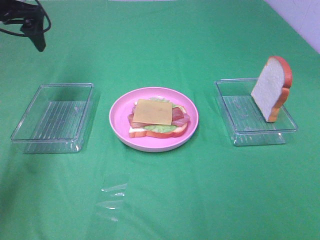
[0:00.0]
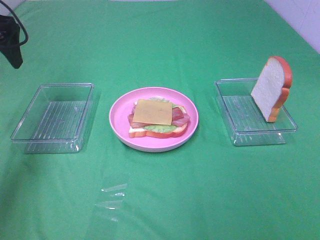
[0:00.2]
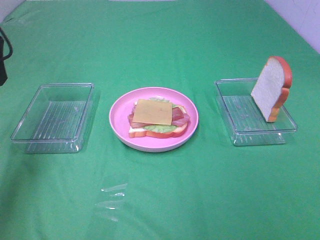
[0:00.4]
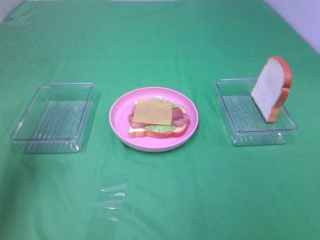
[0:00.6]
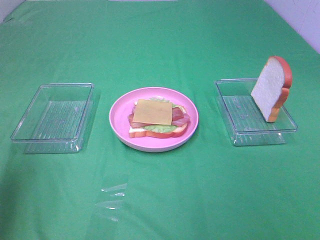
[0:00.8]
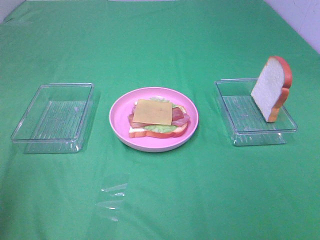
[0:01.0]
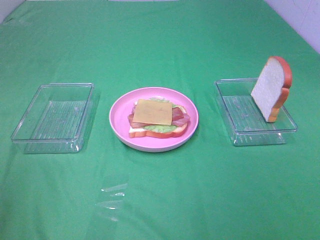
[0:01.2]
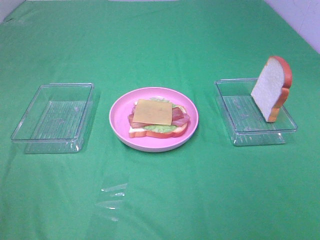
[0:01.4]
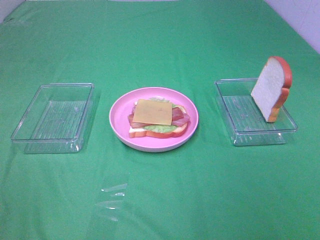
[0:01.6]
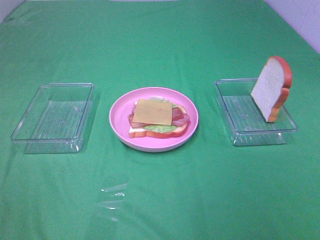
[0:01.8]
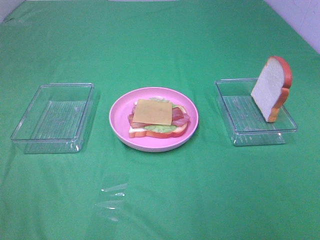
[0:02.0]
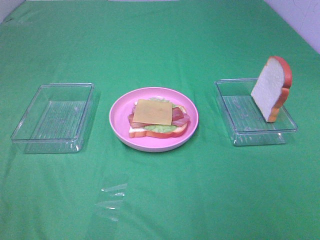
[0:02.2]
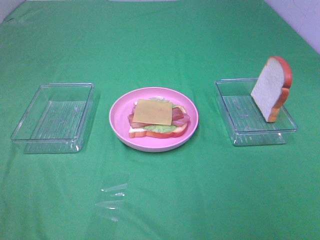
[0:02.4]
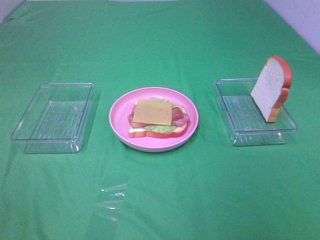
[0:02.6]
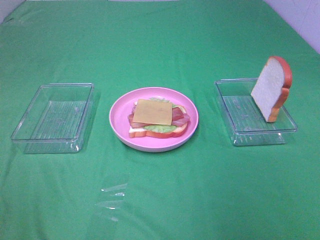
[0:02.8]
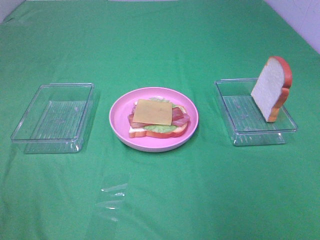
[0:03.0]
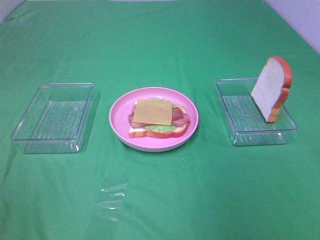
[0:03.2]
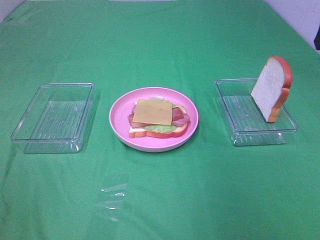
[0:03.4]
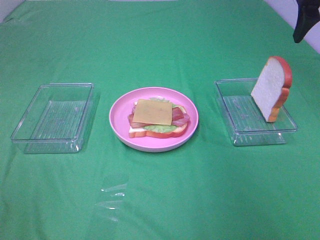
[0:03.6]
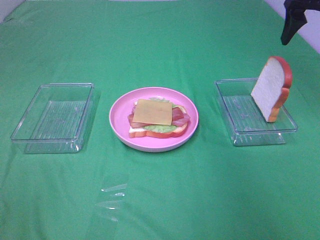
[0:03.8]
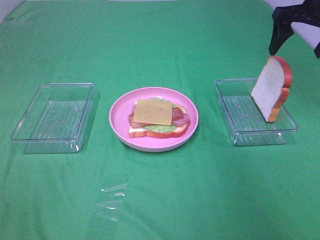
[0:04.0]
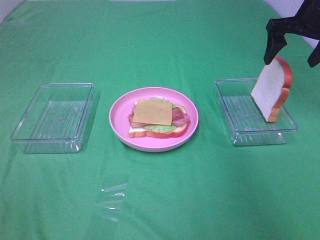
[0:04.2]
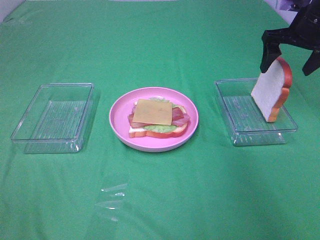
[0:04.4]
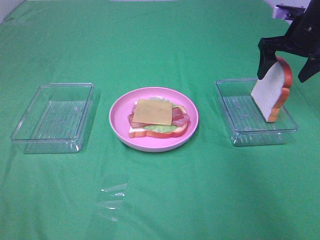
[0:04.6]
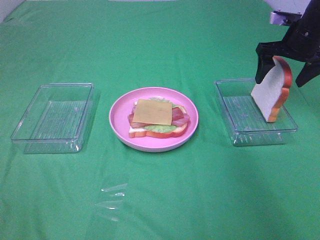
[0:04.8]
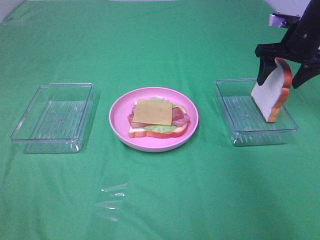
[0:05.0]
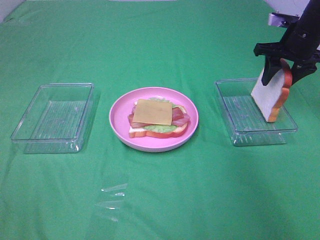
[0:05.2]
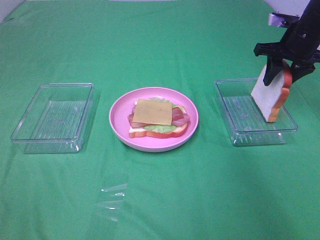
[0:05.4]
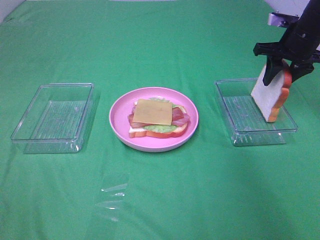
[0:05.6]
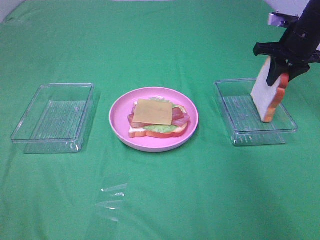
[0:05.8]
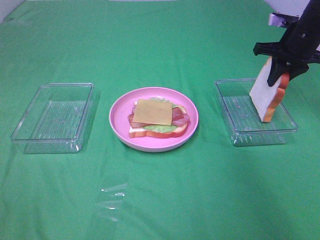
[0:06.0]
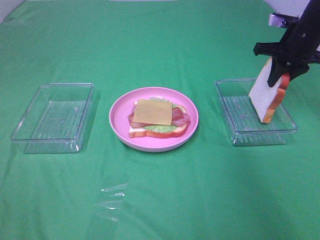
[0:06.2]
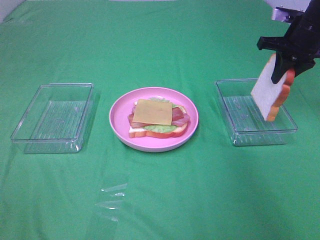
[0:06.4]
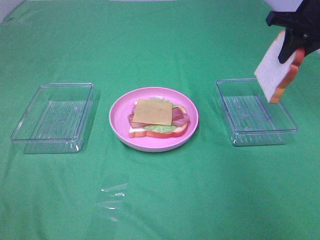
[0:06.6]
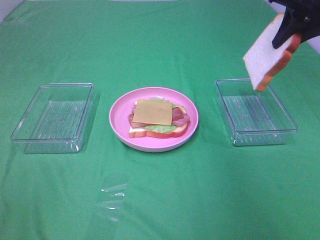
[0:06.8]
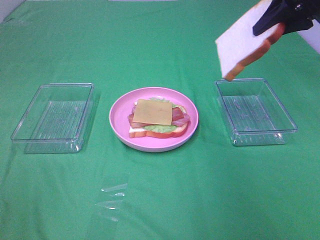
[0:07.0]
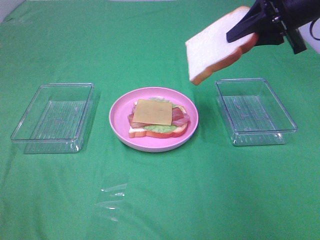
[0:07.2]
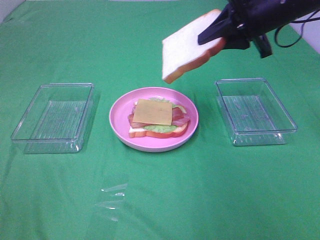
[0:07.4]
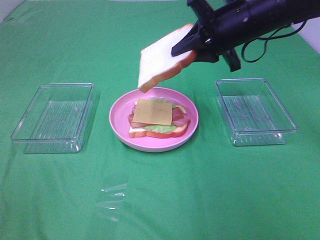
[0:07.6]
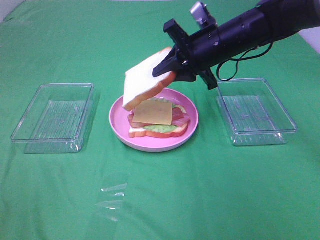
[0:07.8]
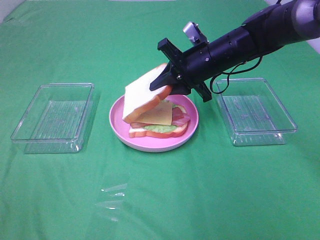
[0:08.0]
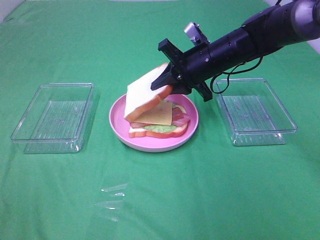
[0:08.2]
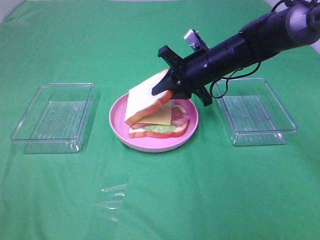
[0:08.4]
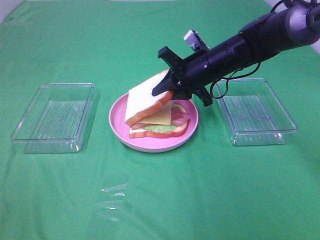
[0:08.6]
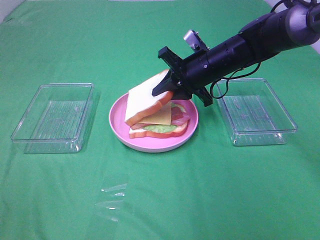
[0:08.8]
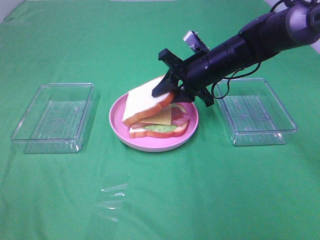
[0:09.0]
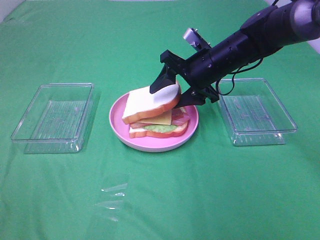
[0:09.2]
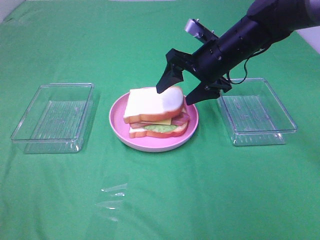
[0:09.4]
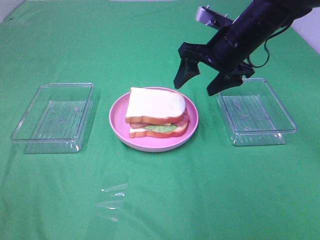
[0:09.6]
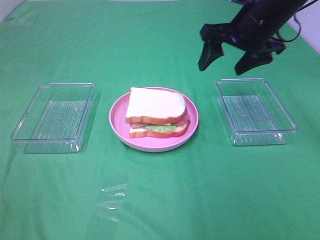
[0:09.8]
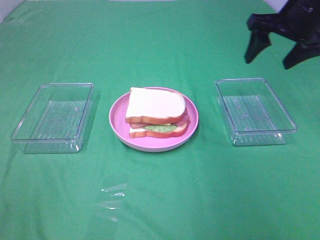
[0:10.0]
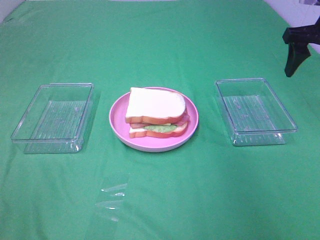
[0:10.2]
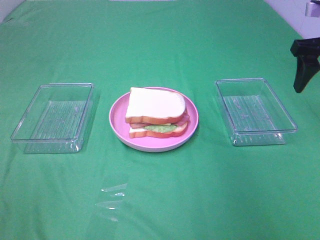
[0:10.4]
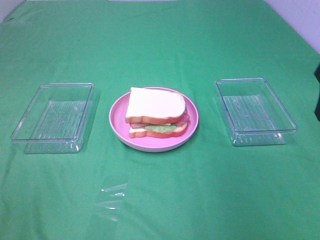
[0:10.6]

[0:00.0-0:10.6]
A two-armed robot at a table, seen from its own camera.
Task of the whole recording: Make sandwiches.
Step, 0:00.0 to 0:06.0: Right hand:grab the bread slice.
Step, 0:06.2 to 0:09.4: Right hand:place the bread slice on the cheese slice.
0:00.0 to 0:01.6: The left gripper shifts about 40 cm backward.
0:03.0 to 0:04.6: The right gripper moves forward and downward, some 30 cm.
0:04.6 to 0:06.0: The right gripper closes up.
0:06.0 to 0:07.6: The right gripper travels to the left and backward by approximately 15 cm.
0:07.6 to 0:09.0: The right gripper shifts roughly 10 cm downward.
0:09.0 to 0:10.6: The right gripper is displaced to the right, backward and upward by some 25 cm, and opens up.

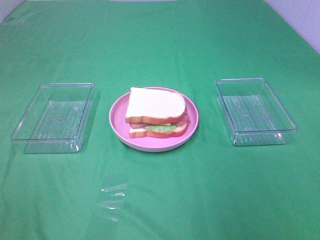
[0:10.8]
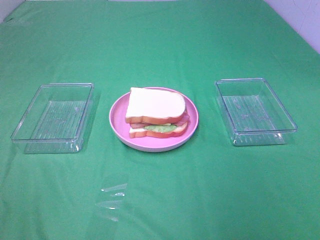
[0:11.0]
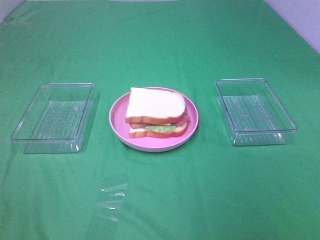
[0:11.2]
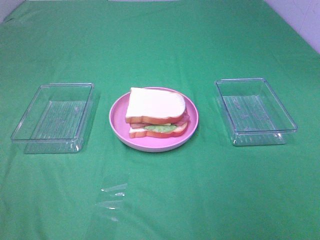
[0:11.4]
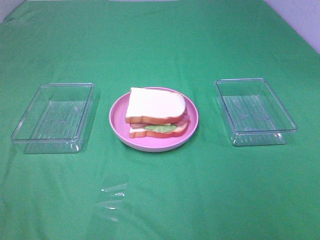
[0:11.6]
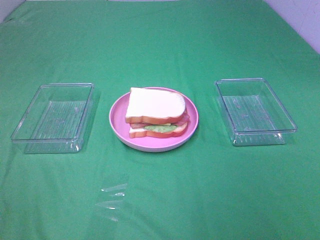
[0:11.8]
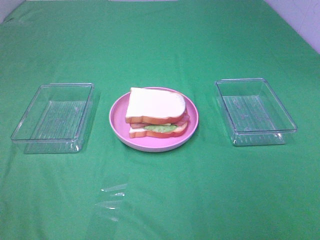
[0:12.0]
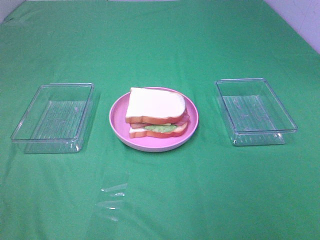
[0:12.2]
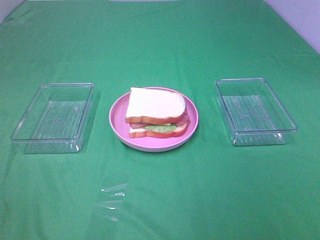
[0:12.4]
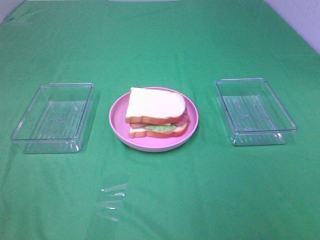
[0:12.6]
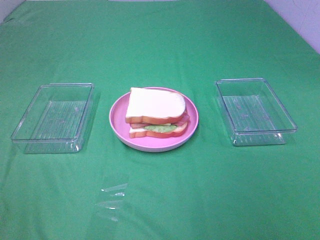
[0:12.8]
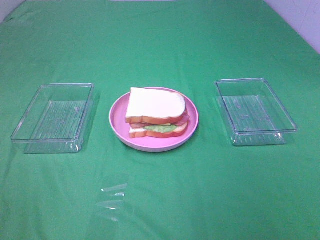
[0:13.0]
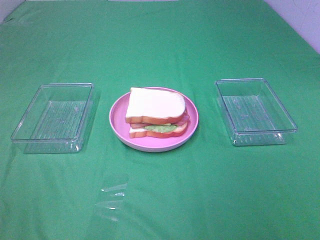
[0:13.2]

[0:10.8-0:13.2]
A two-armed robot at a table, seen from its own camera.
Task of the whole recording: Make sandwiches.
0:12.0 to 0:13.2: Both grippers stay about where they are.

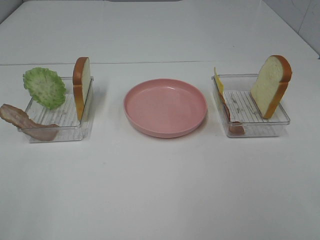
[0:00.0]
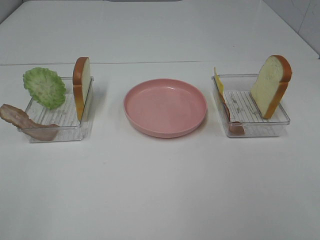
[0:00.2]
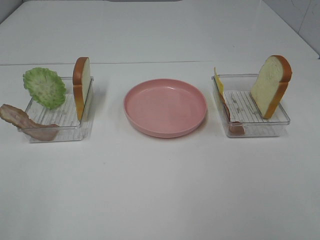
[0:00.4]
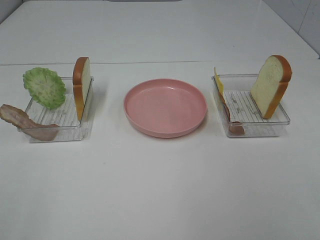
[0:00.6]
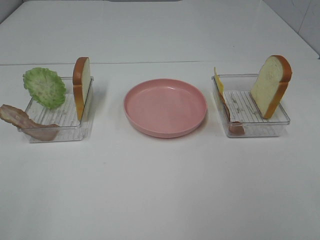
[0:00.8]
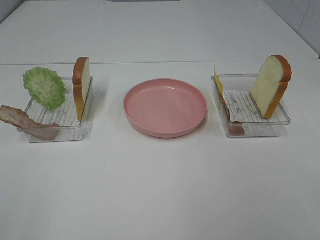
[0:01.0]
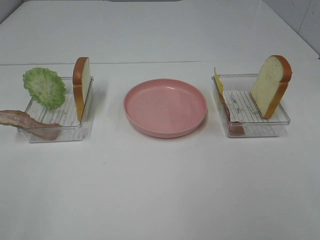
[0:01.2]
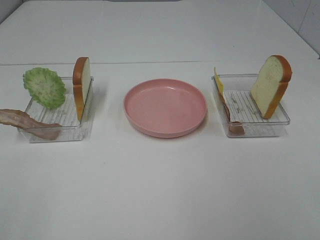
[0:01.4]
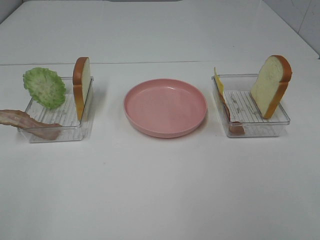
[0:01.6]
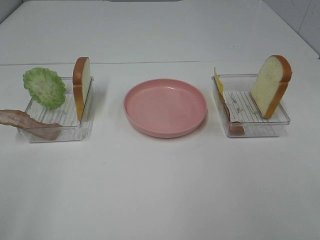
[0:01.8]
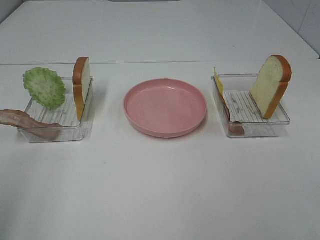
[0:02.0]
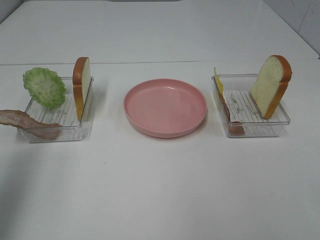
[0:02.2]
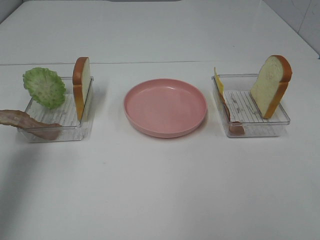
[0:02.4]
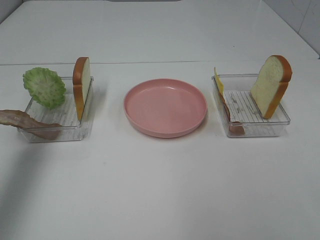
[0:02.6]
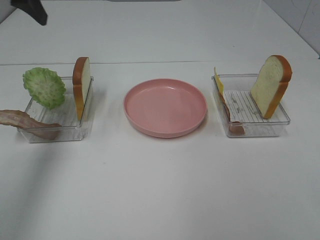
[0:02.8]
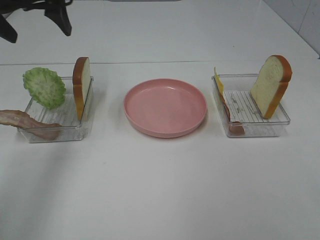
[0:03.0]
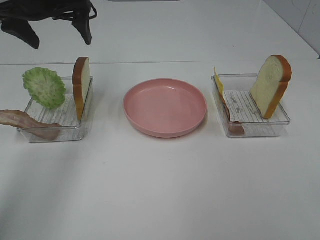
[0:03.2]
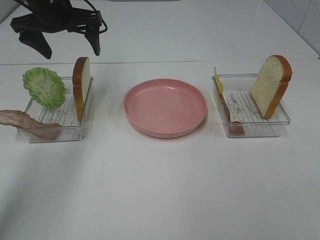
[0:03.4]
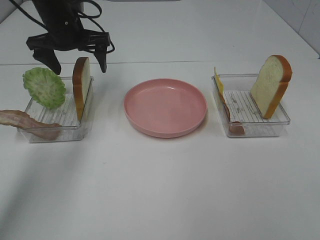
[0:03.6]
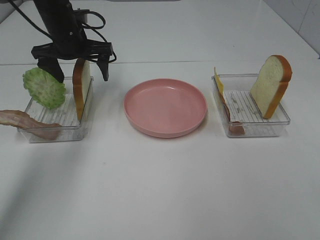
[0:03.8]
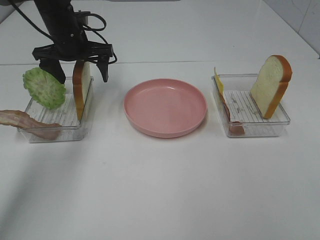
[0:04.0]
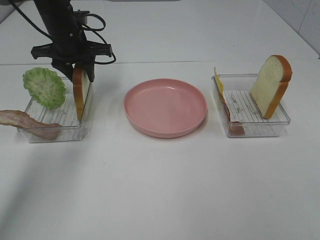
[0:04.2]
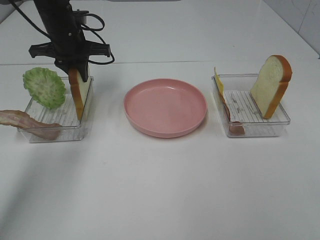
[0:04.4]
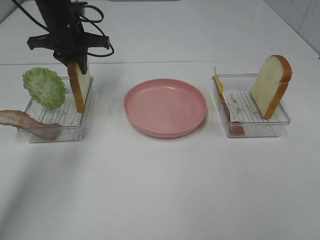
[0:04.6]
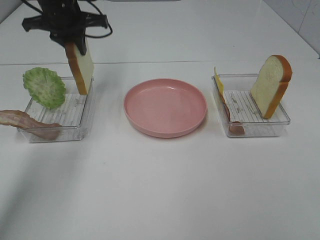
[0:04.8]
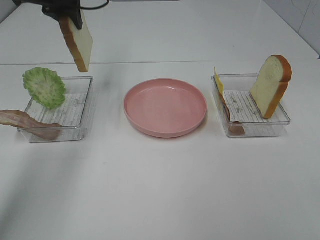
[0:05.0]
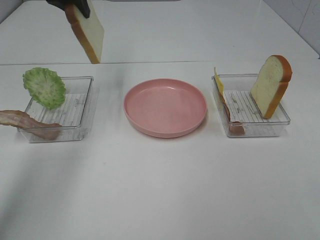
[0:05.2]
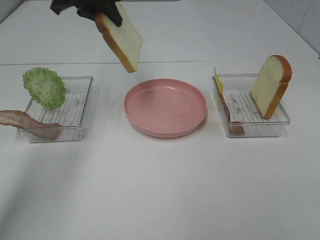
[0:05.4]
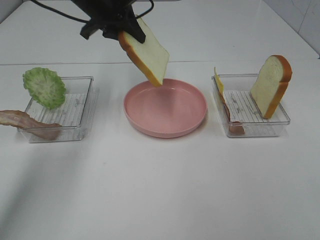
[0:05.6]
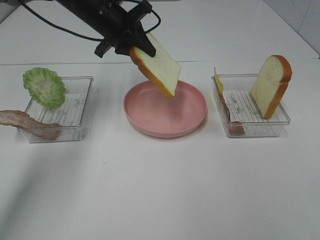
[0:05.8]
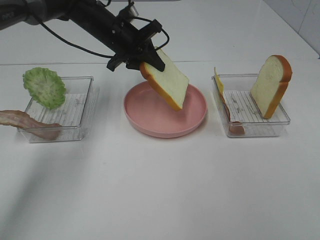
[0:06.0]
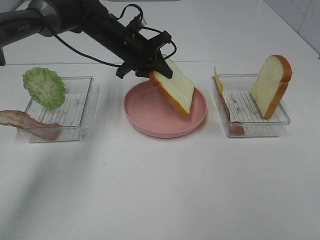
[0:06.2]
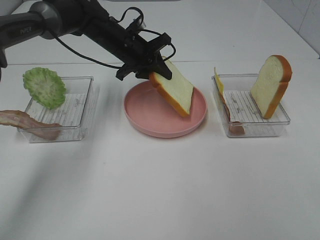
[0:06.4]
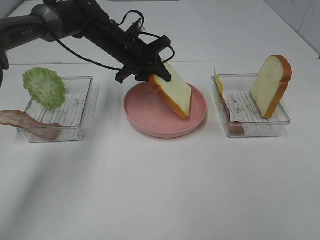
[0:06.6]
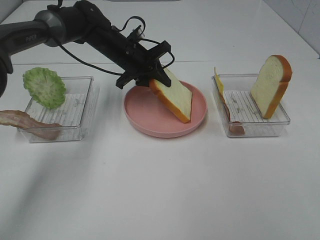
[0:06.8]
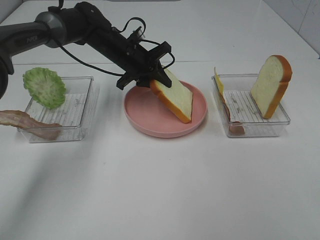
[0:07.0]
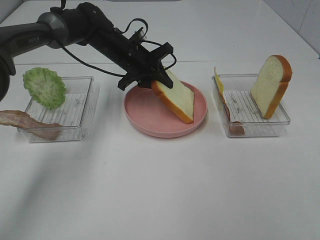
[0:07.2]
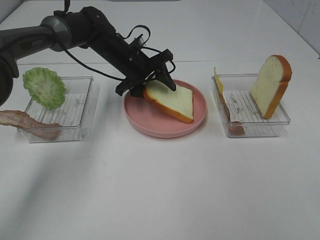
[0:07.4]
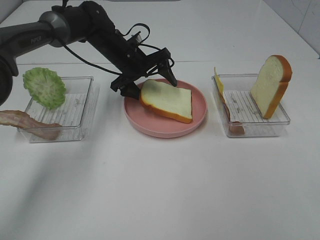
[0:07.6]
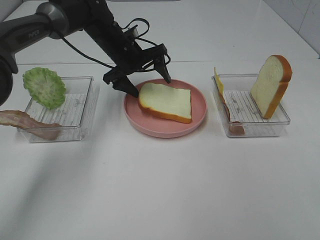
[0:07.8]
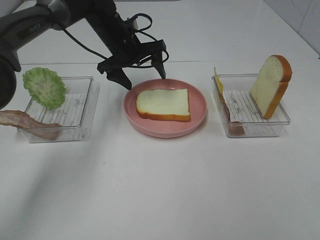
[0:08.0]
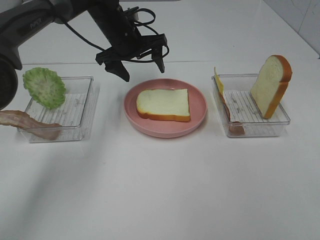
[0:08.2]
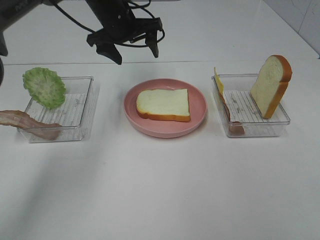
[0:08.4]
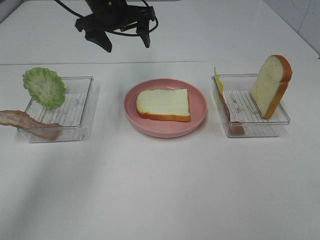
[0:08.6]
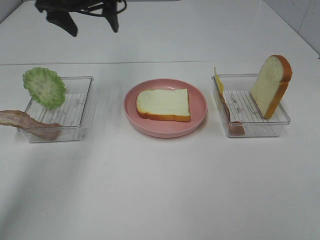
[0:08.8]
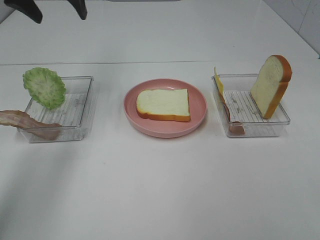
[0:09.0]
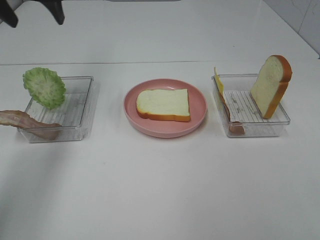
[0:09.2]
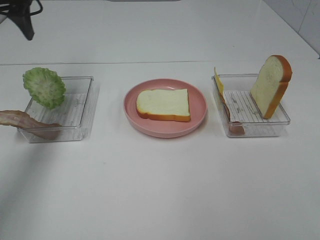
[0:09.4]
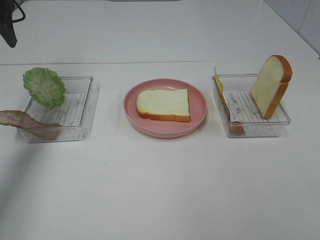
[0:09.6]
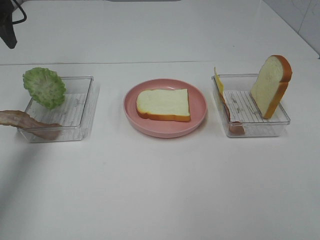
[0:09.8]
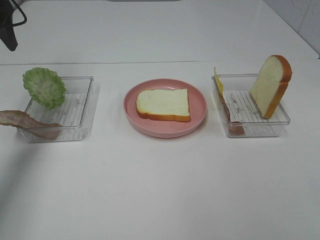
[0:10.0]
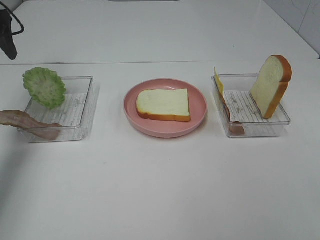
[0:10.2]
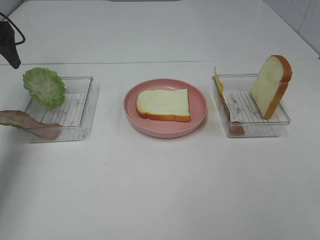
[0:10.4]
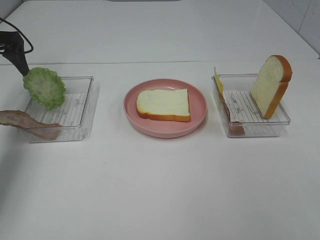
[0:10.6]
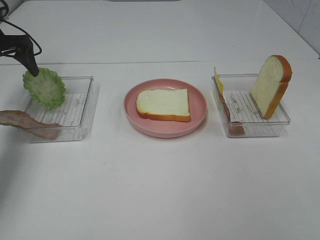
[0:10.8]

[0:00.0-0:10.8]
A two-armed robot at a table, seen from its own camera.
Task of the whole recording: Make sandwiches.
Step, 0:00.0 to 0:04.6: Left hand:grab the bread slice.
Step, 0:04.8 to 0:08.2: Left hand:place the bread slice on the plate.
0:00.0 to 0:01.6: The two grippers keep their place.
0:01.6 to 0:03.0: The left gripper goes roughly 40 cm forward.
0:03.0 to 0:04.6: The left gripper moves downward and forward, some 15 cm, and closes its fingers.
0:04.6 to 0:06.2: The left gripper moves to the right, approximately 10 cm, and goes upward and returns, roughly 10 cm each way.
0:06.2 to 0:07.8: The left gripper opens.
0:07.8 to 0:09.2: The left gripper moves upward and to the left, some 25 cm.
0:09.2 to 0:10.8: The left gripper travels downward and to the left by some 15 cm.
